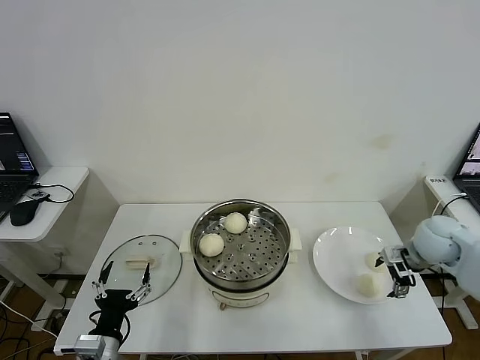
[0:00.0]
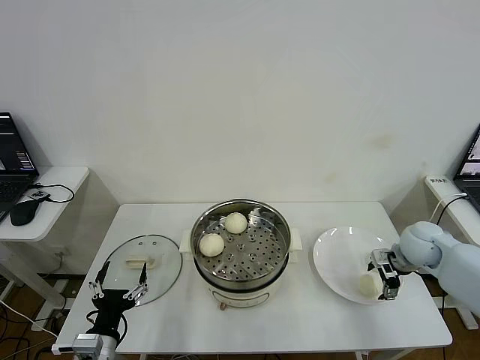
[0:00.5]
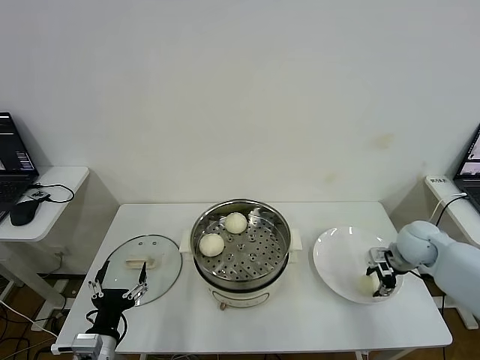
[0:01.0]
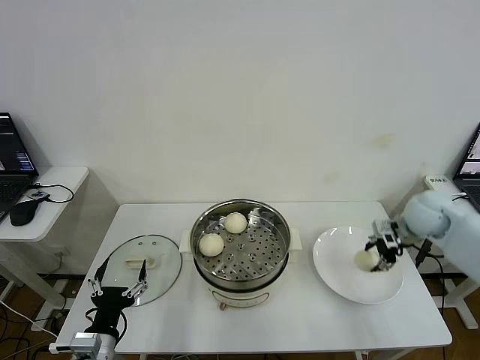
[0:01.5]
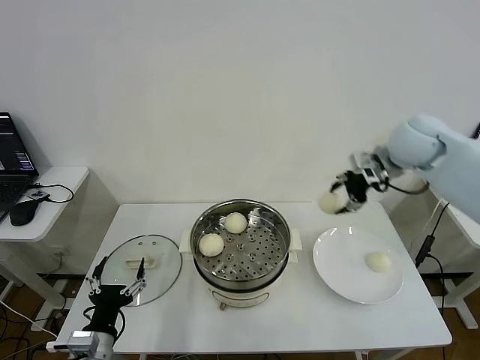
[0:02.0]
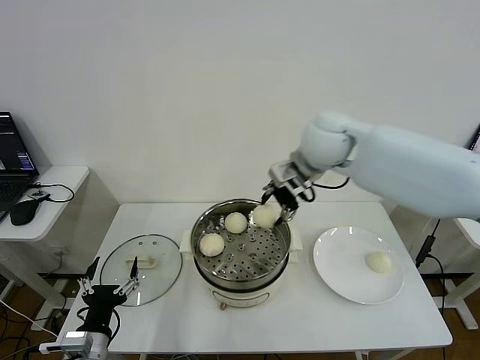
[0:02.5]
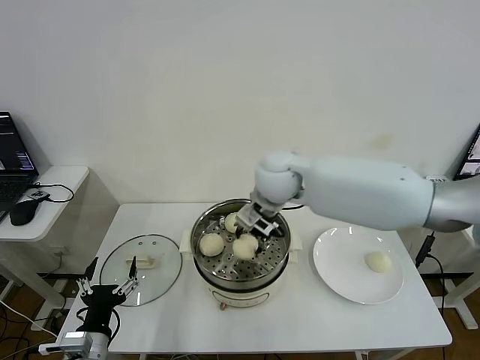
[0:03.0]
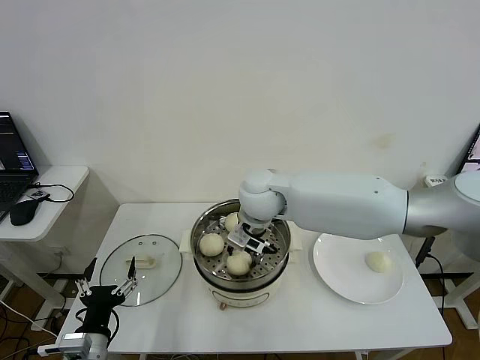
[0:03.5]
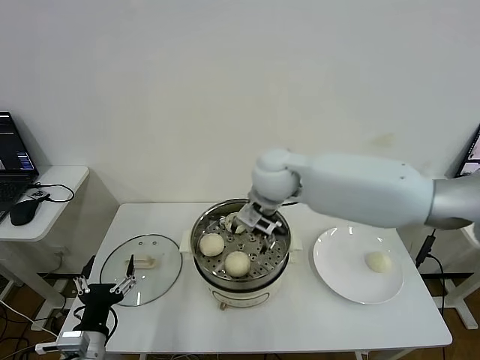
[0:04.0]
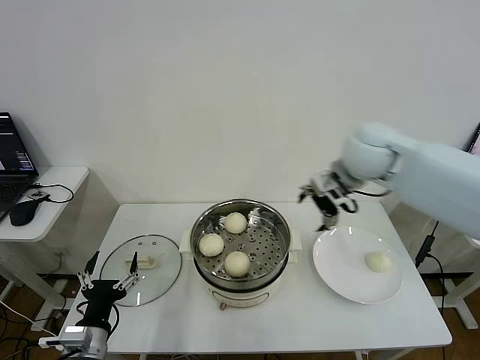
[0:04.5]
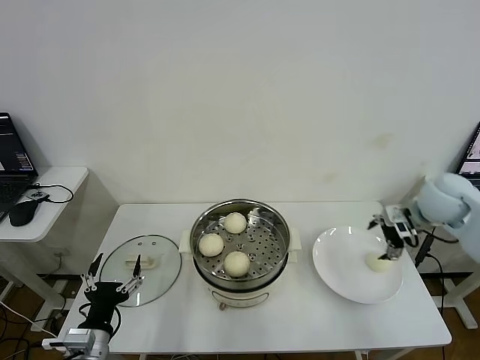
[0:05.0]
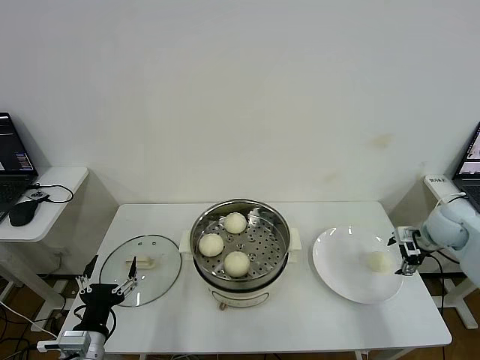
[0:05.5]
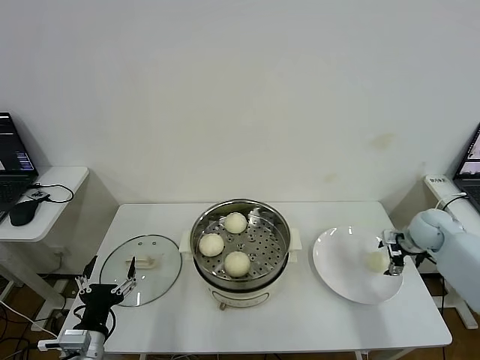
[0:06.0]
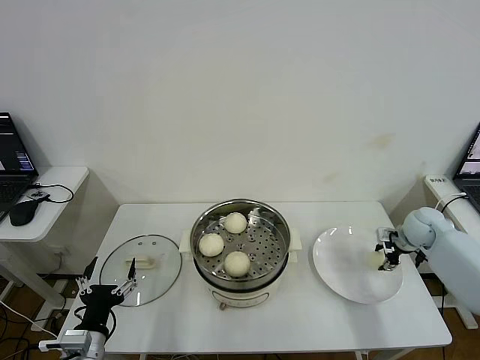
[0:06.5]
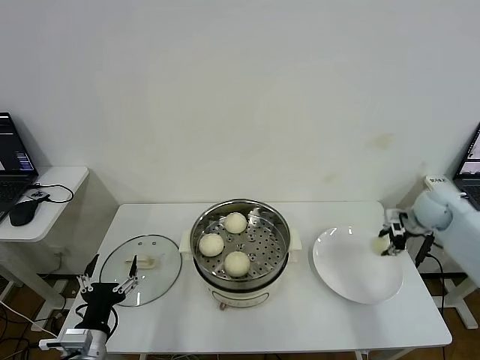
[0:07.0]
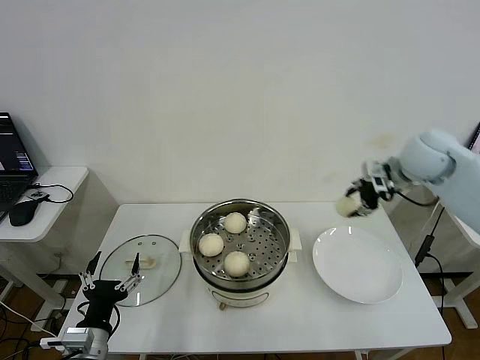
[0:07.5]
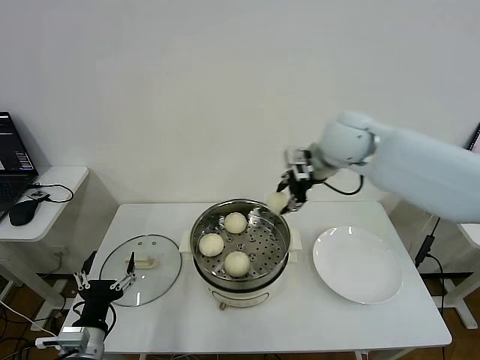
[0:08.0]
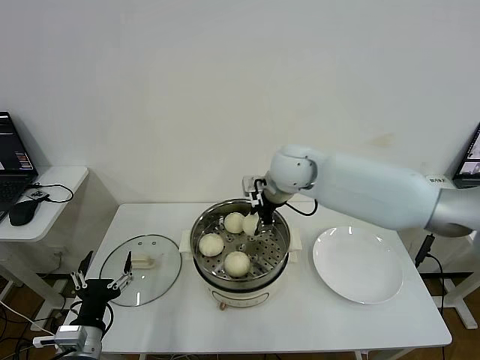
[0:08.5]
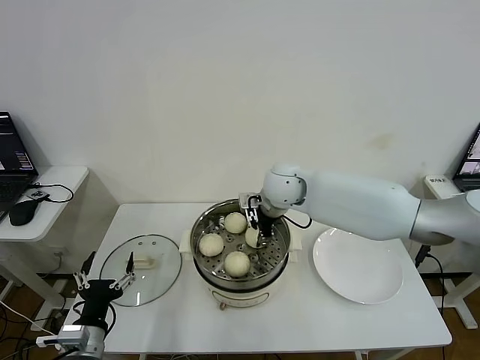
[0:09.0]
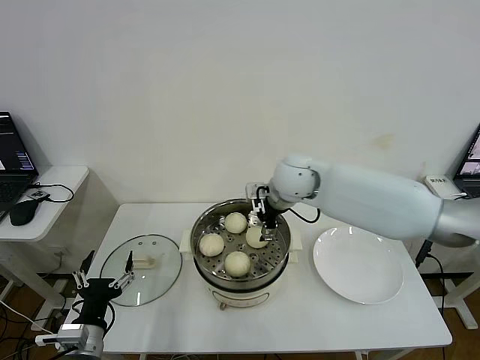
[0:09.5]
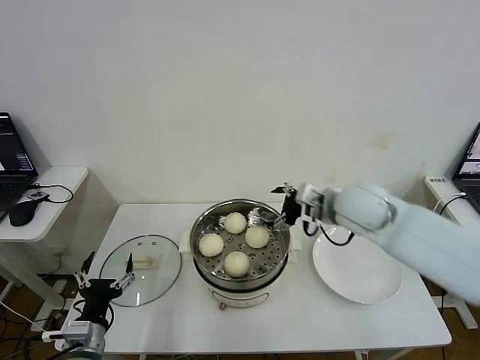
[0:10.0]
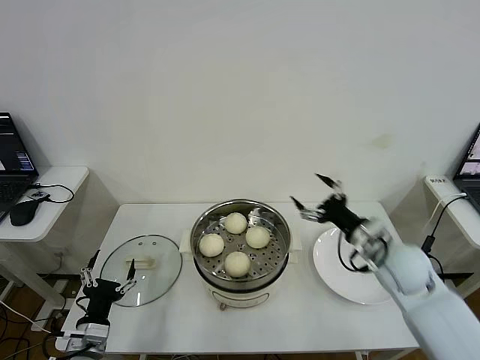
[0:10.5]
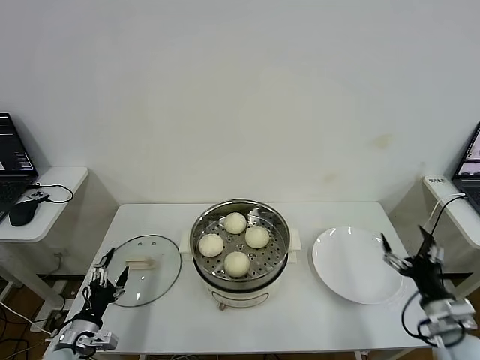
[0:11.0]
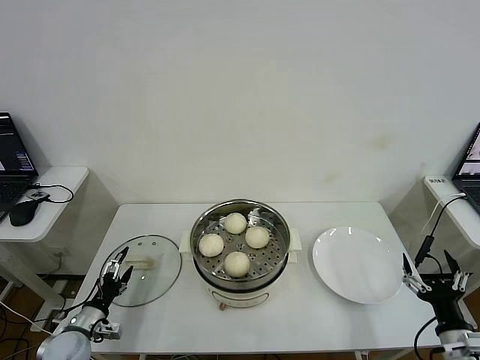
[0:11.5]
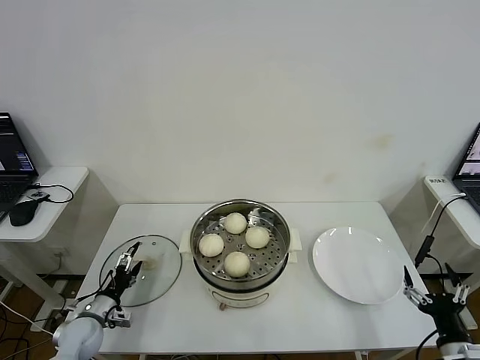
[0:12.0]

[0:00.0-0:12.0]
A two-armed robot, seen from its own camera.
Step, 1.5 to 3.5 s: Place the baozi on the steamer with right gripper.
Step, 4.0 to 6.5 s: Grasp the baozi in the plate with right gripper.
Step, 7.0 to 9.0 s: Place the baozi on the steamer with right gripper.
0.0 to 2.0 s: The right gripper is displaced upward, to the left and forward by some 25 cm, and closes.
2.0 to 4.0 s: The right gripper heads to the left, covering roughly 25 cm, and opens.
4.0 to 6.0 s: The right gripper travels to the right and downward by approximately 40 cm.
6.0 to 8.0 s: The right gripper travels to the left and upward by some 35 cm, and closes.
8.0 to 10.0 s: The right gripper heads downward and backward, covering approximately 15 cm, goes to the left and returns, about 10 cm each way, and opens.
10.0 to 12.0 s: The right gripper travels backward, downward and to the right by roughly 40 cm; the left gripper shifts approximately 20 cm downward, forward and to the left.

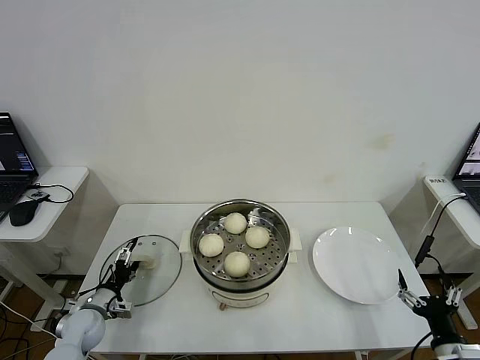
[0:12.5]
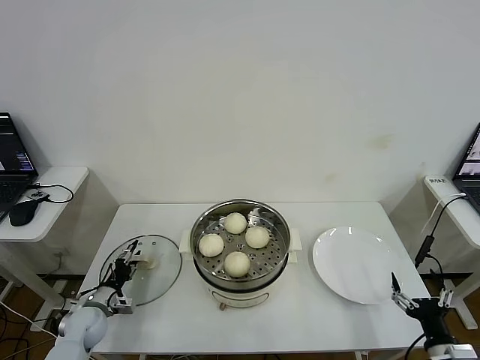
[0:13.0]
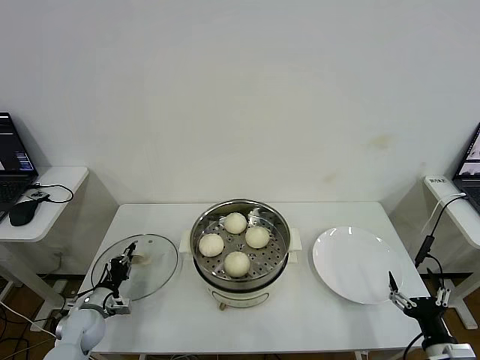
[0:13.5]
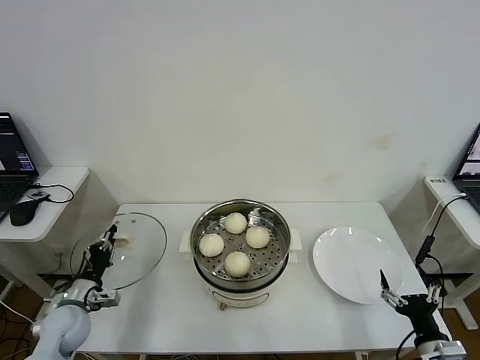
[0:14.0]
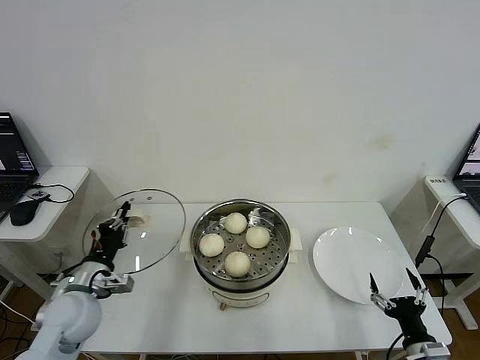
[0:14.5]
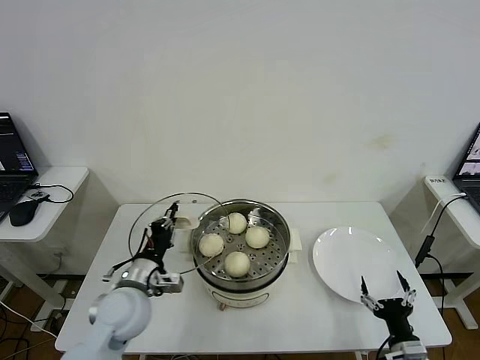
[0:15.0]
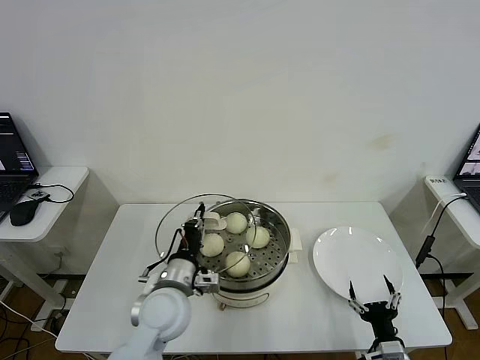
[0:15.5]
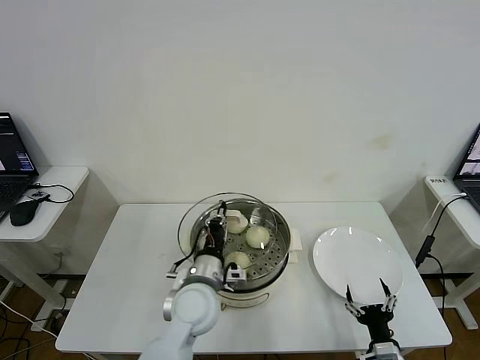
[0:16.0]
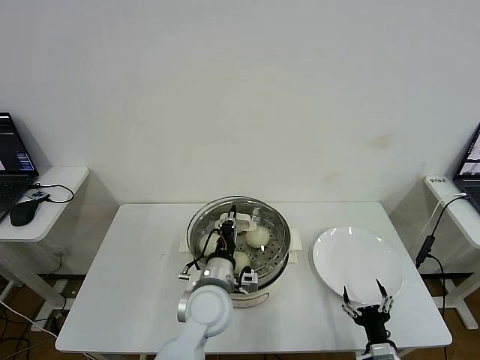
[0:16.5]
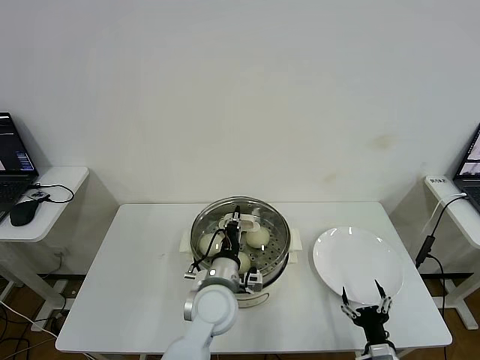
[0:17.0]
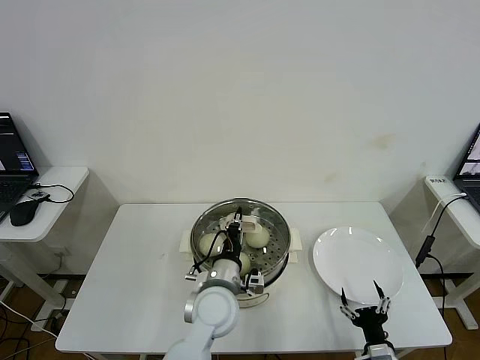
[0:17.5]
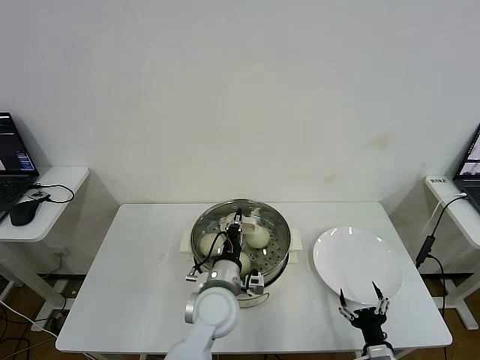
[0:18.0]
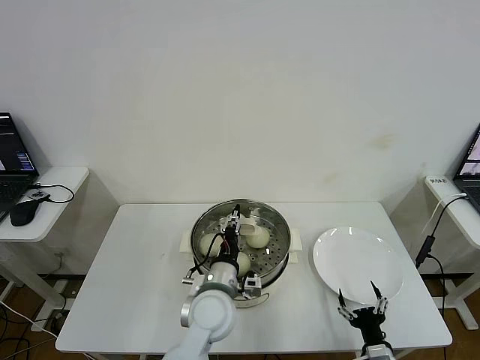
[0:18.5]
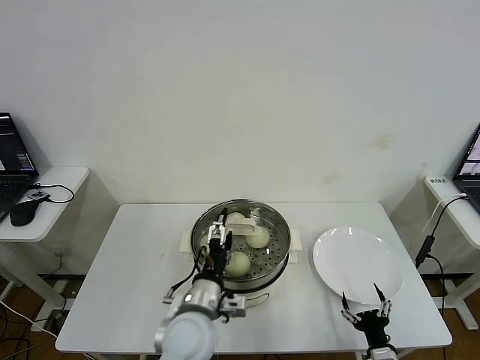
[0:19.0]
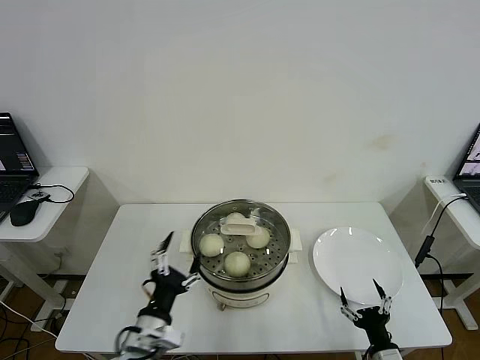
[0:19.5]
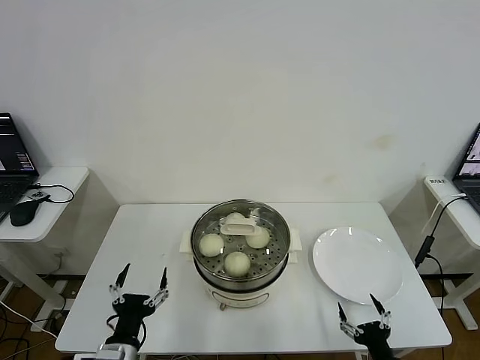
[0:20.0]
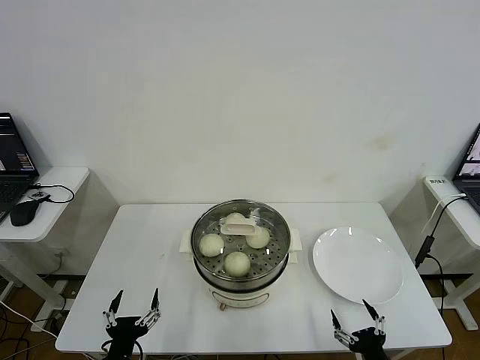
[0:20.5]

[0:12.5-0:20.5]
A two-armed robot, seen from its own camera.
Step, 14.0 to 18.5 s: Place the pot lid on the steamer with left gripper.
12.5 to 14.5 s: The left gripper moves upward, roughly 15 cm, and closes its fingers.
14.5 to 16.5 s: The left gripper goes approximately 25 cm to the right; the right gripper travels downward and to the left by approximately 10 cm.
16.5 to 18.5 s: The left gripper opens.
18.5 to 20.5 s: The right gripper travels backward by about 5 cm; the left gripper moves to the left and backward, approximately 25 cm, and opens up.

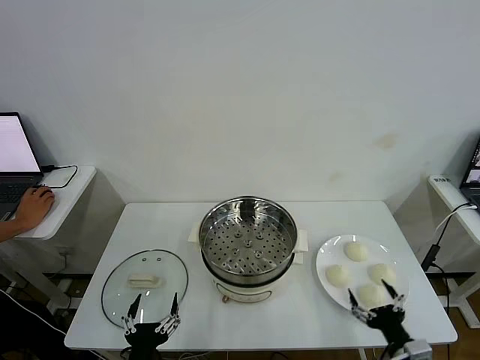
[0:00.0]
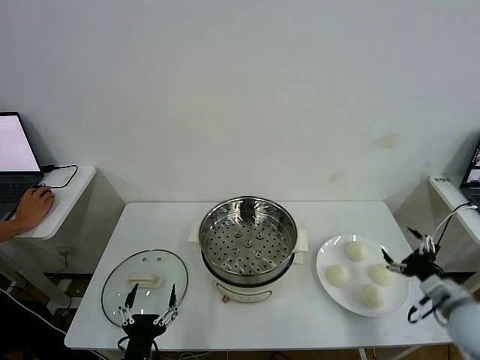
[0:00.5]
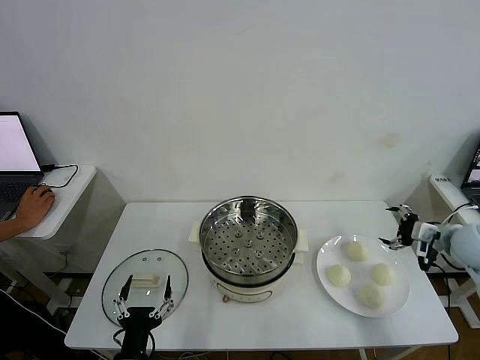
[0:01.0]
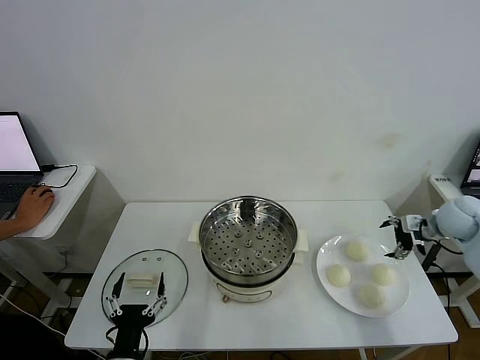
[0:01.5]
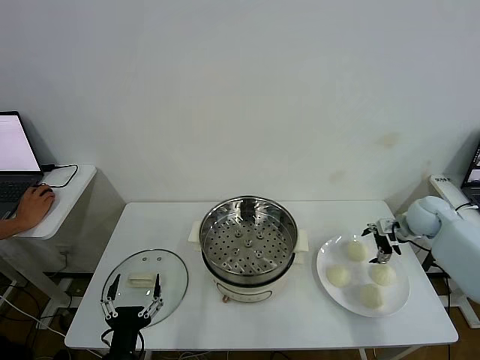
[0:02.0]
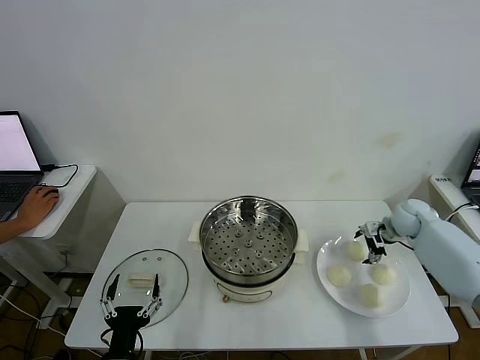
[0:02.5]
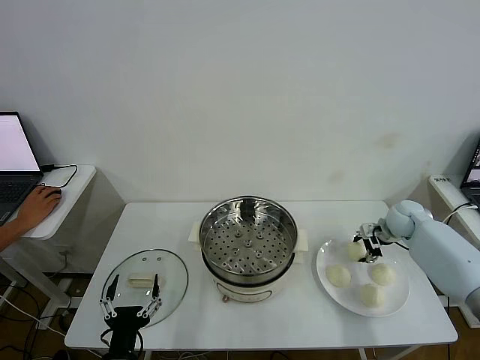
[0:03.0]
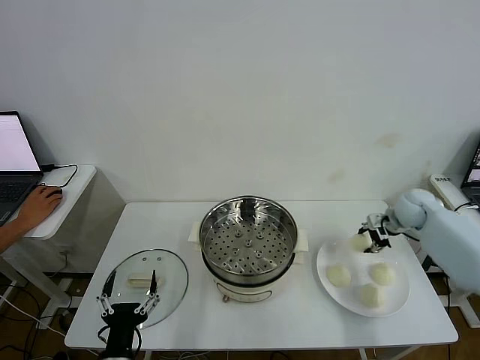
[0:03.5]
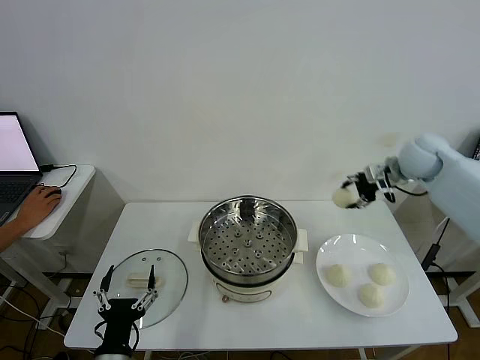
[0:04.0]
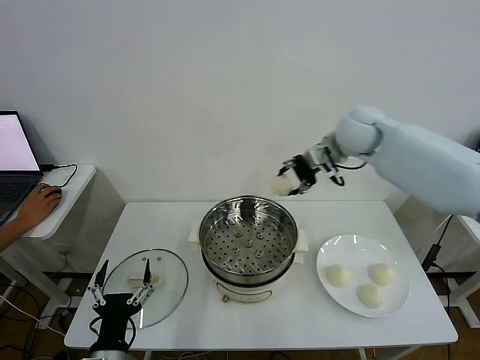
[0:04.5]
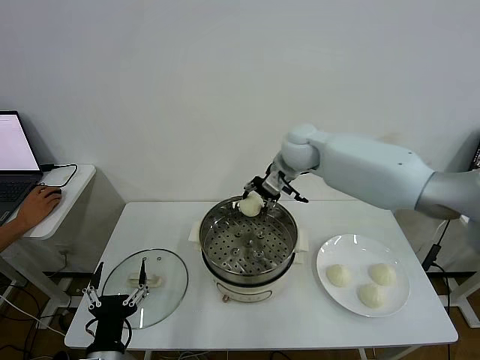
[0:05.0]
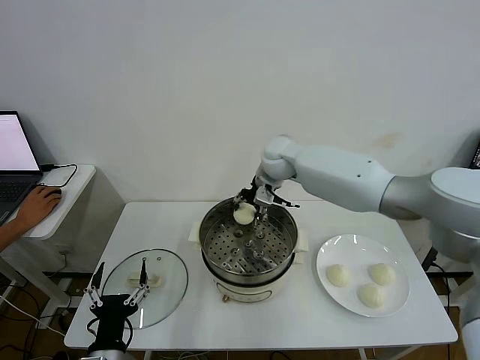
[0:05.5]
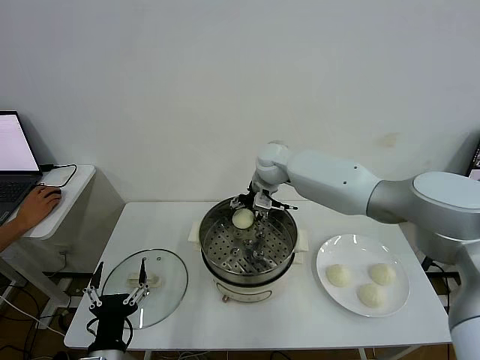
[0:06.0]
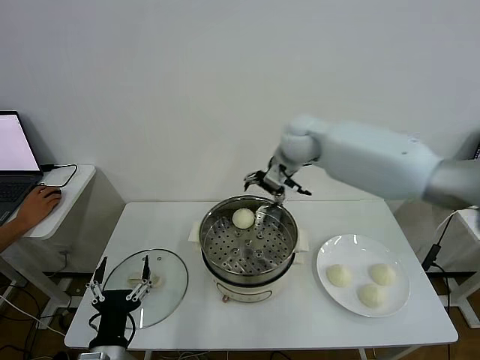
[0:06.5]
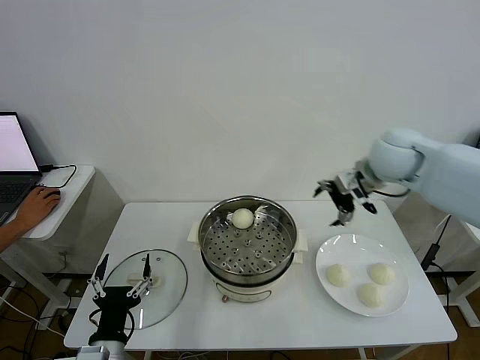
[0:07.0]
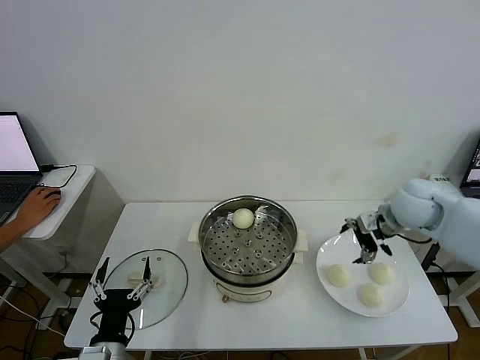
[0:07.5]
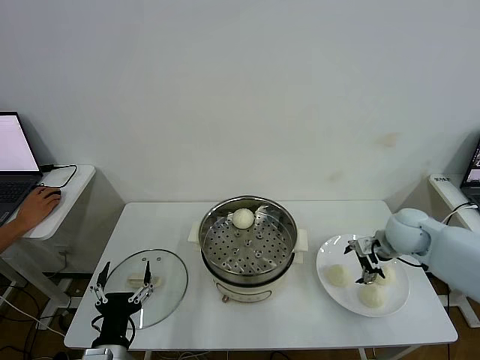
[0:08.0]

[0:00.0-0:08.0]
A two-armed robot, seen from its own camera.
Step, 0.0 to 3.0 s: Grasp the baozi in the plate with right gripper.
Step, 3.5 to 6.0 s: Place the baozi on the steamer with right gripper.
2.0 to 4.0 s: The right gripper heads upward and to the left, covering some 20 cm, and closes.
4.0 to 6.0 s: The right gripper is displaced to the left by approximately 30 cm, and opens.
6.0 to 8.0 s: The right gripper is displaced to the right and backward by about 35 cm, and opens its fingers.
